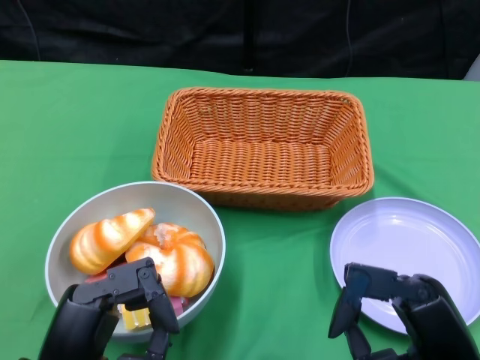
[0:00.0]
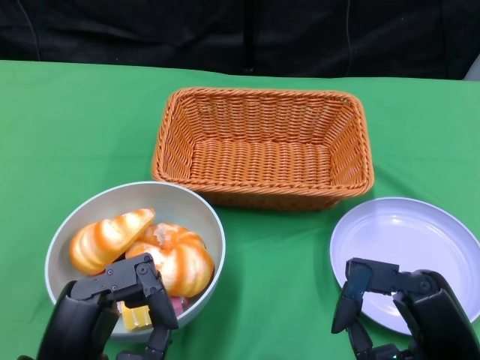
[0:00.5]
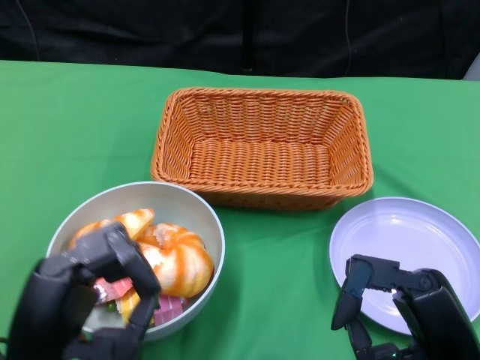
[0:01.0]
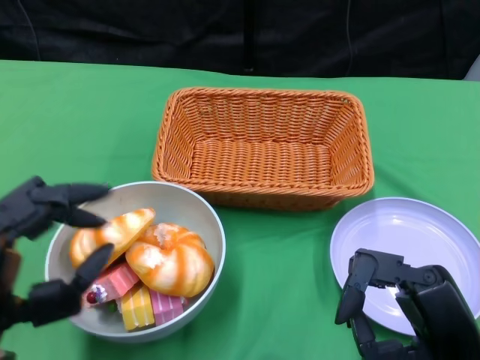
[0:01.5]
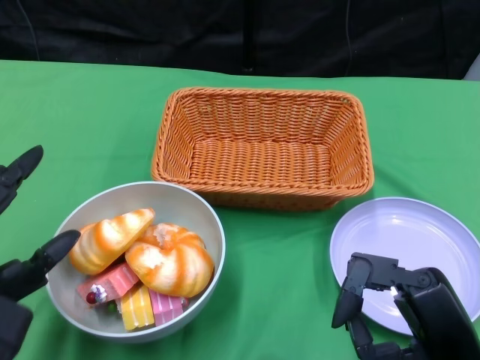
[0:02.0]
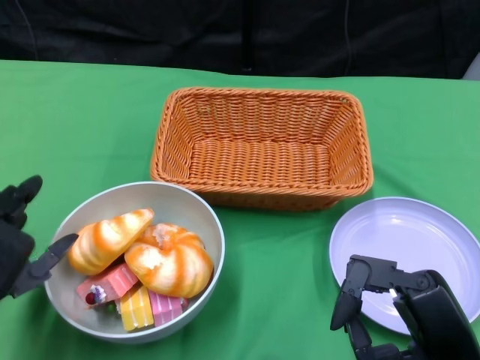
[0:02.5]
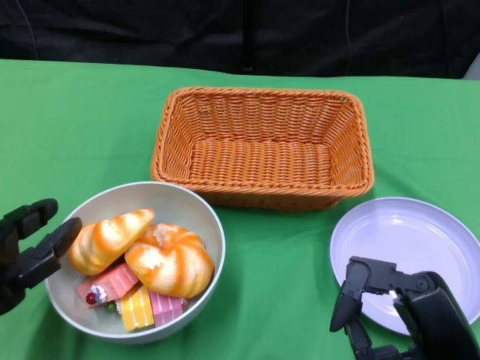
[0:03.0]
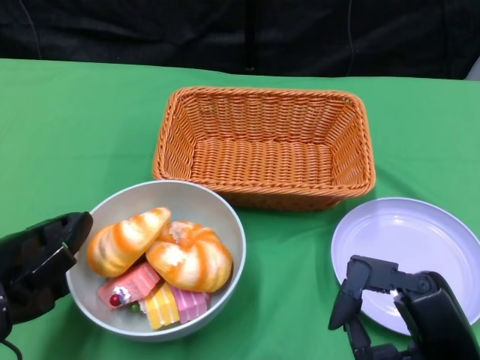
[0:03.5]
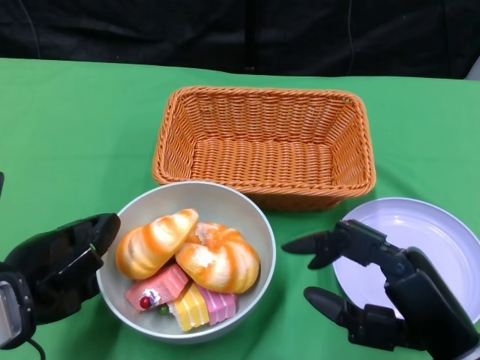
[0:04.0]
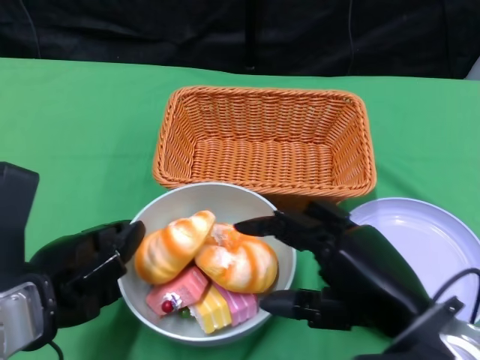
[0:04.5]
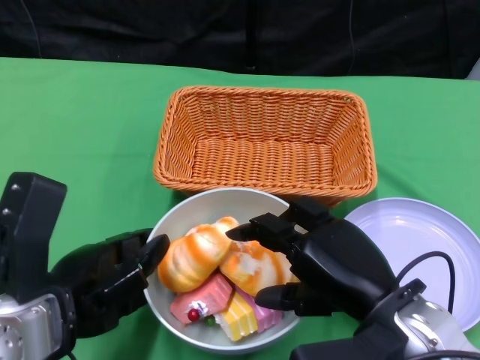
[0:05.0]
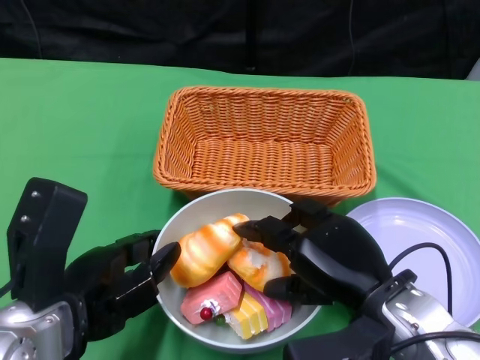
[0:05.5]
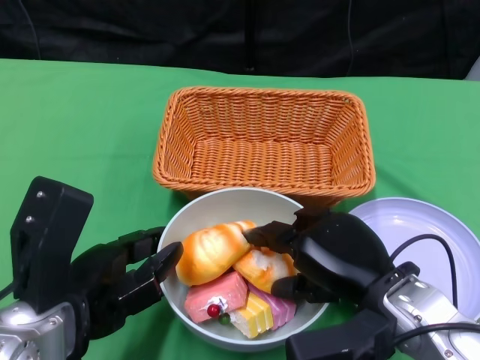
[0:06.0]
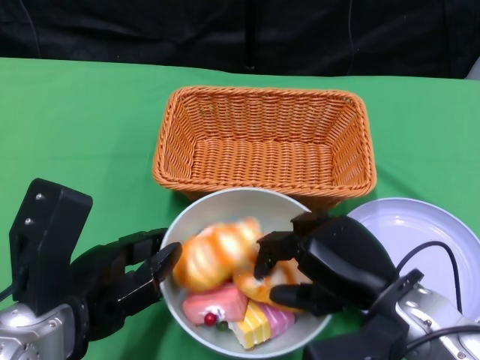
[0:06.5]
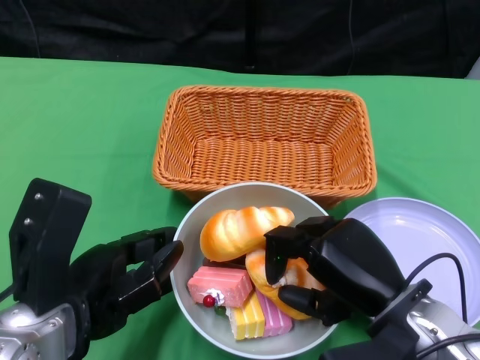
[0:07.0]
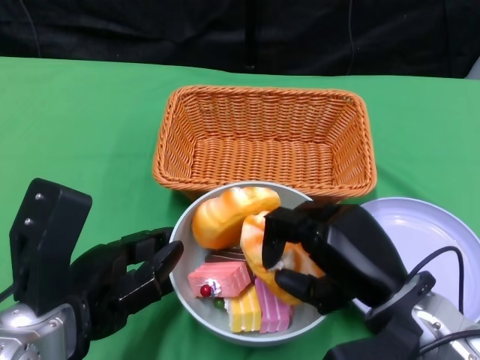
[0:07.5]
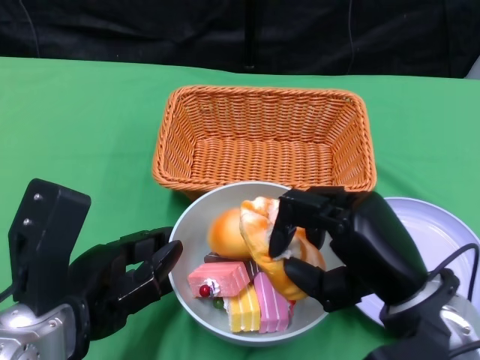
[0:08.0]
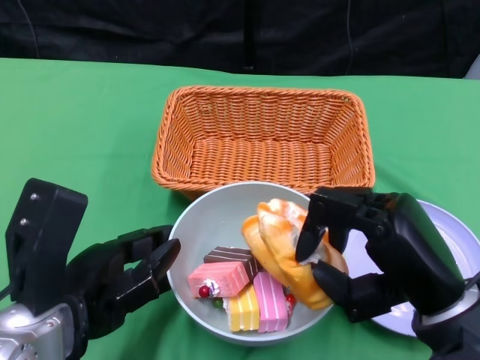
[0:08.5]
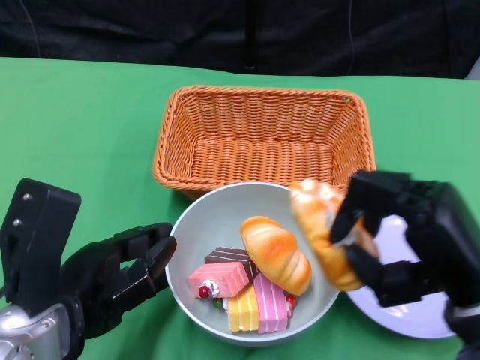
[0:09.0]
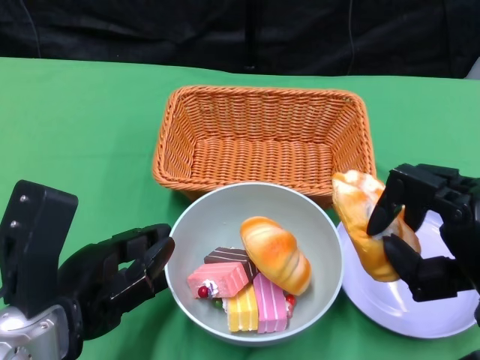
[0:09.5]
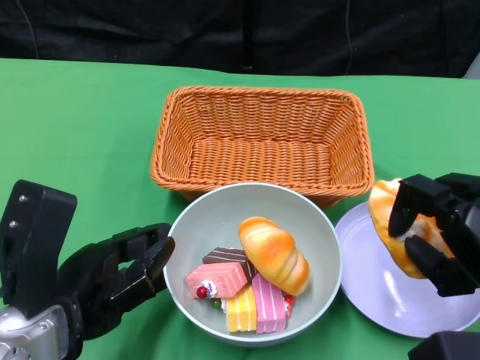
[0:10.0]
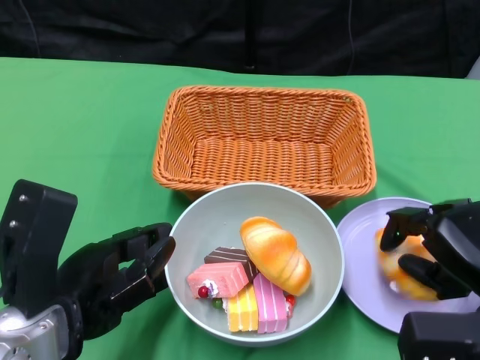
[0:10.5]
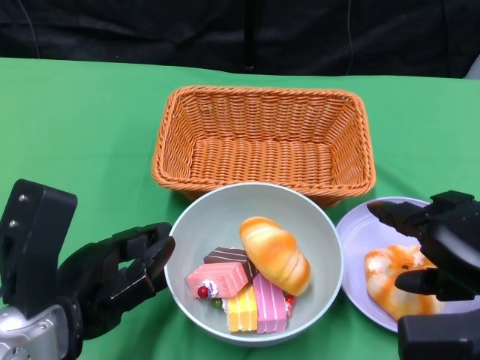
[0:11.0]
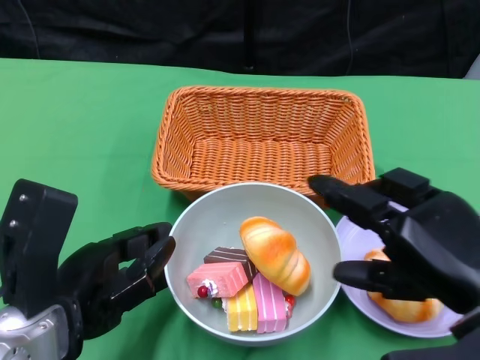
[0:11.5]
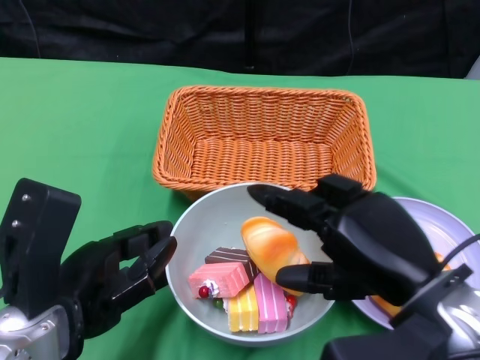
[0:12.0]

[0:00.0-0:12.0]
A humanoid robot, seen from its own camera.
Step, 0:00.0 to 0:05.0: Push the bowl to the center of the table using the left gripper.
0:02.0 to 0:04.0: The left hand goes roughly 5 cm forward.
0:04.0 to 0:06.0: The right hand shifts roughly 5 cm forward.
0:08.0 to 0:10.0: The right hand shifts about 10 cm to the right.
0:10.0 to 0:12.0: The right hand heads to the left, covering about 10 cm.

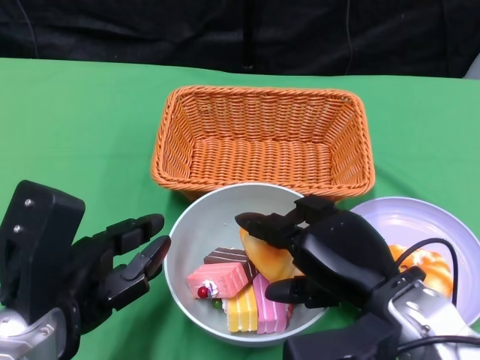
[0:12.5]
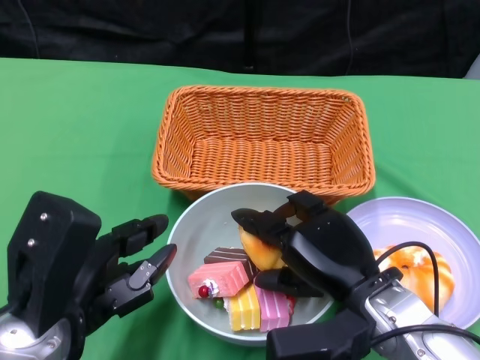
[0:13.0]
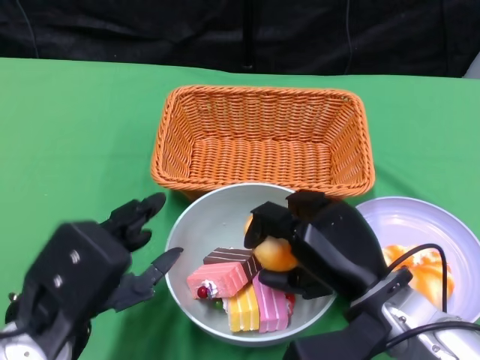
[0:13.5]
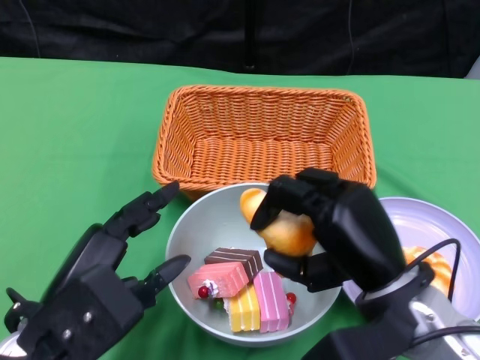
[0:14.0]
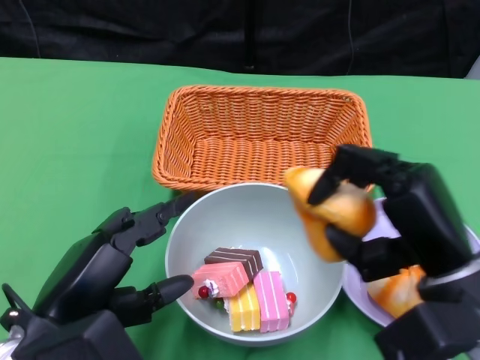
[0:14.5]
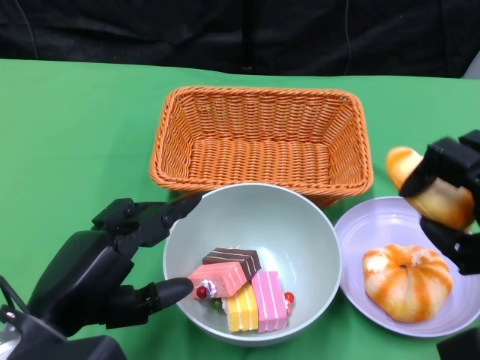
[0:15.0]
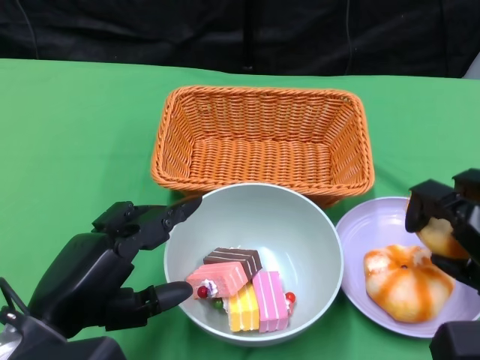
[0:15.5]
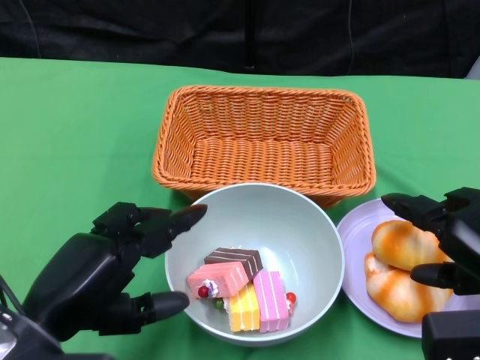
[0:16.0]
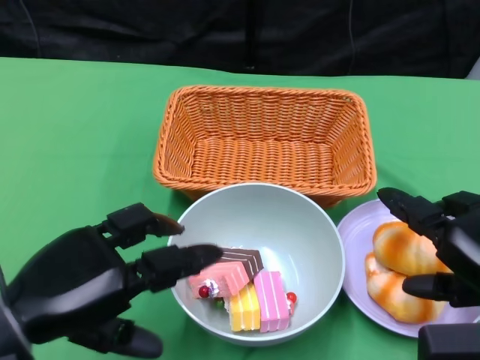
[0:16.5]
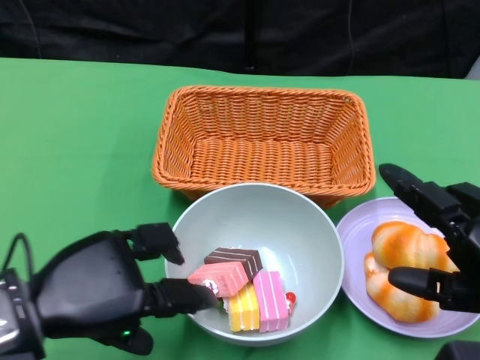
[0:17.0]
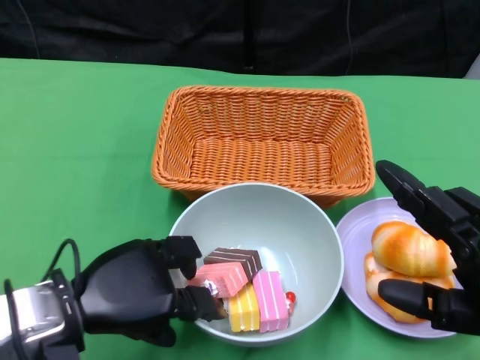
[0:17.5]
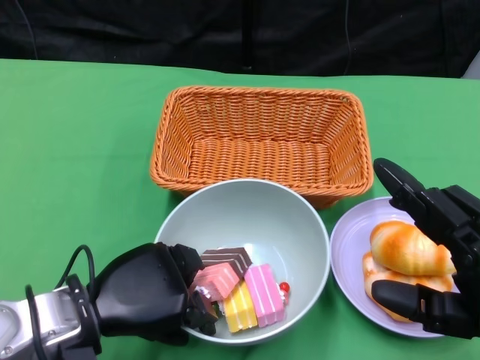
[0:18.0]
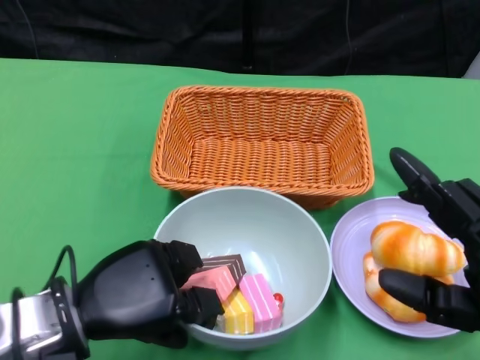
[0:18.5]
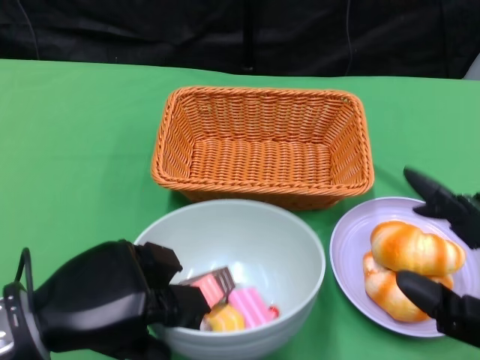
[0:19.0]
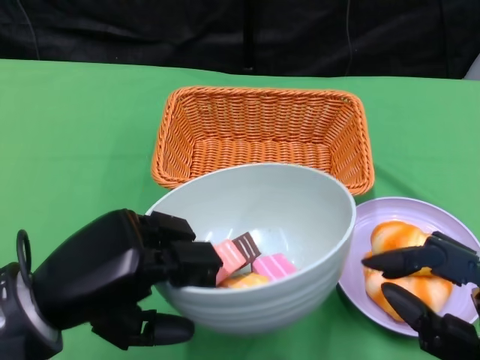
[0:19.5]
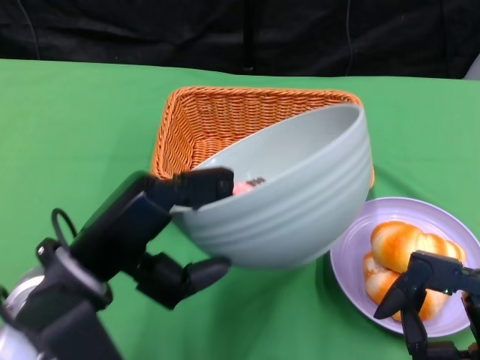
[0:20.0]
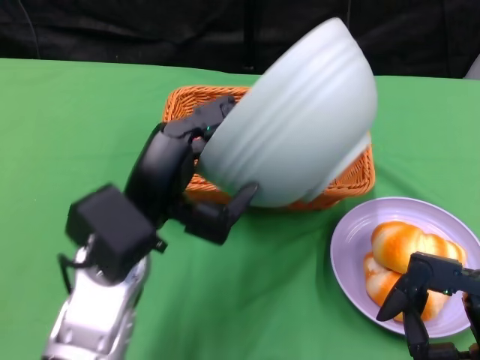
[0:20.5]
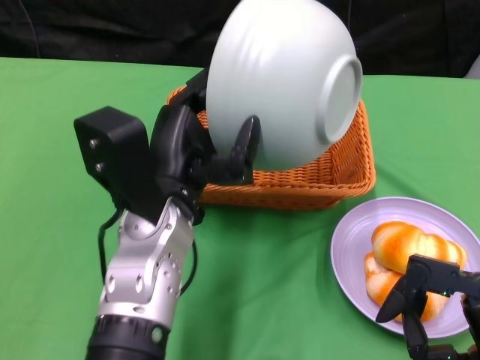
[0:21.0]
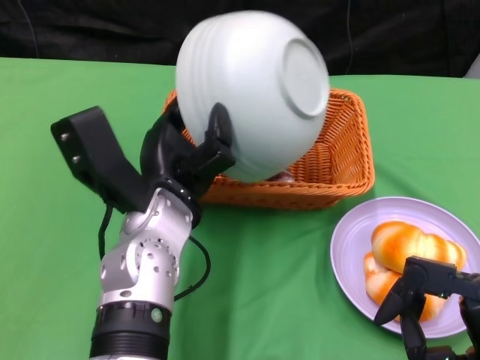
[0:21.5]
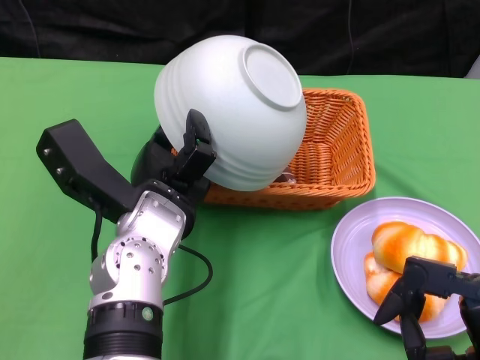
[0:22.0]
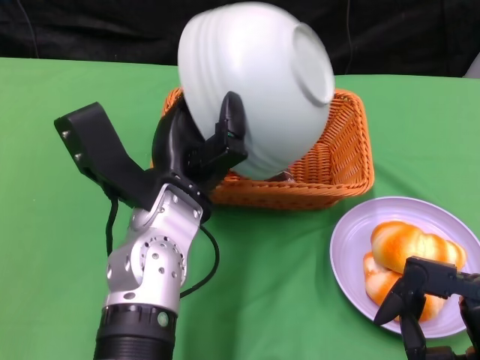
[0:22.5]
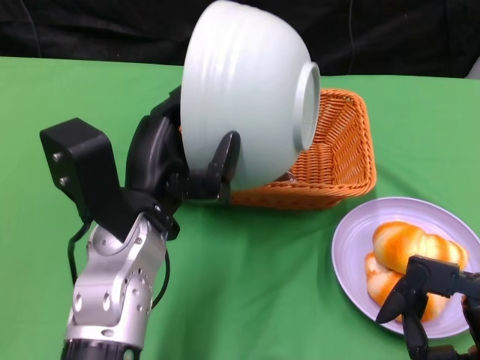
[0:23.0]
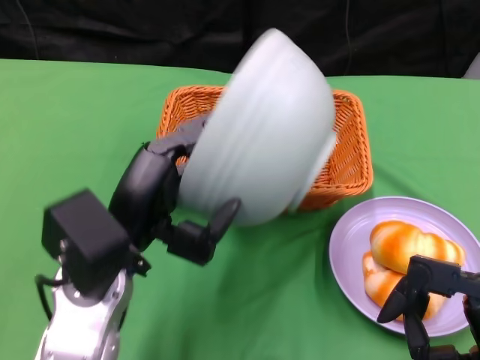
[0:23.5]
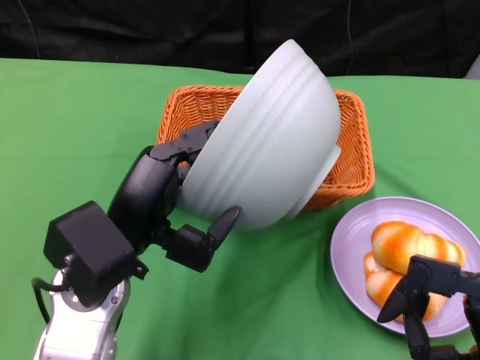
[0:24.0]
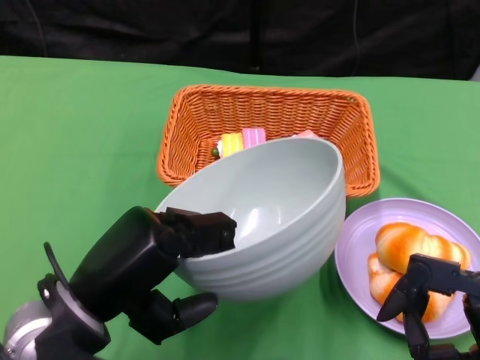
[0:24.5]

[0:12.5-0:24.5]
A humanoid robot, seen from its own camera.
Step, 0:12.5 to 0:16.0: Pick up the bread with the right gripper and place it on the plate.
Step, 0:16.5 to 0:18.0: Grasp the bowl with the left gripper.
Step, 0:18.5 to 0:21.5: Pour the cake into the basket with the left gripper.
0:14.5 to 0:16.5: The right hand moves to the right, approximately 5 cm.
0:16.5 to 0:18.5: The right hand goes roughly 5 cm backward, while the left hand moves downward, roughly 5 cm.
0:18.5 to 0:20.5: The left hand heads upward and to the right, covering some 10 cm.
0:20.5 to 0:22.5: The left hand changes place by some 5 cm.
0:22.5 to 0:24.5: The left hand is displaced to the left and backward by about 15 cm.

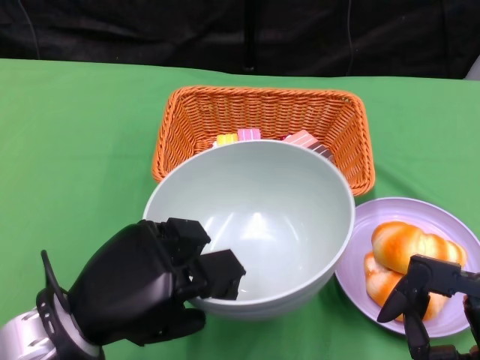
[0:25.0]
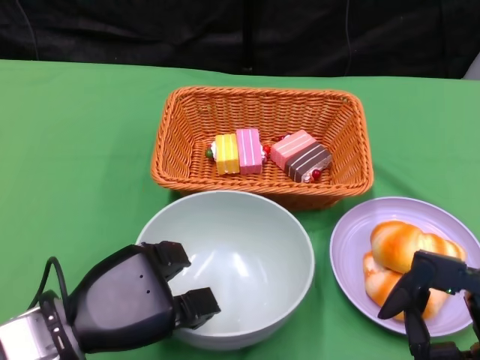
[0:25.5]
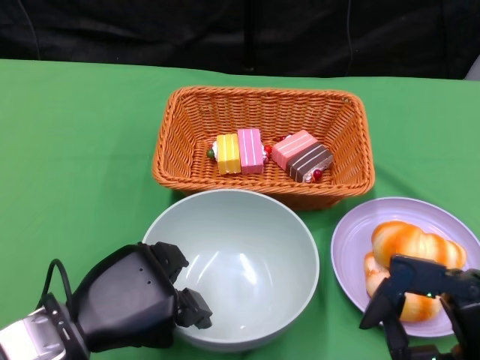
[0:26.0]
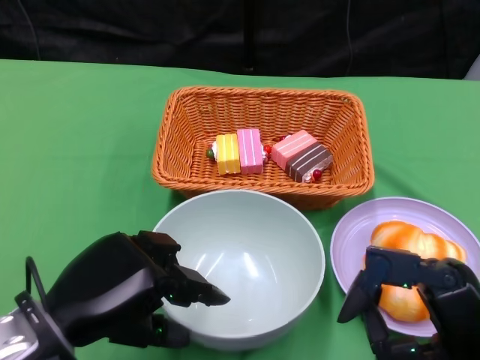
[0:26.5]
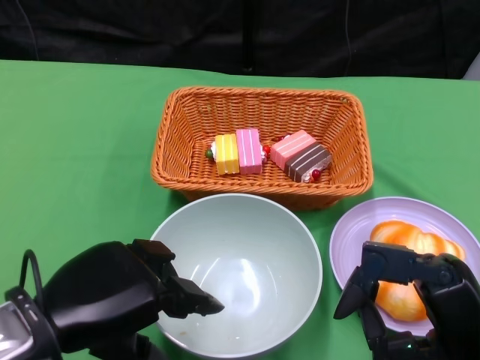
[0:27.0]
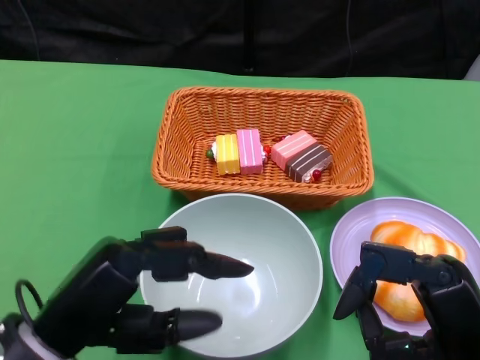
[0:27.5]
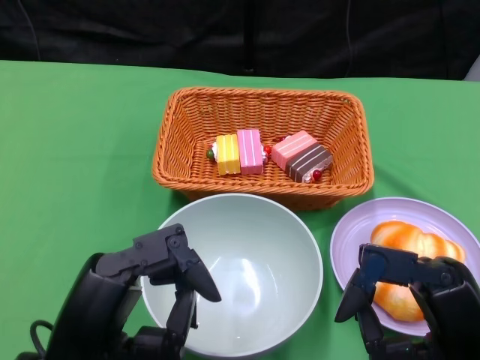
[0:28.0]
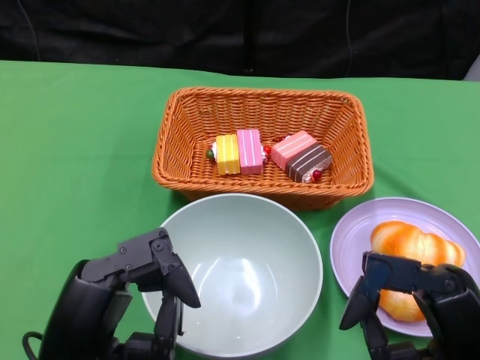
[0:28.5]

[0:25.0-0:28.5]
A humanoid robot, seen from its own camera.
0:27.0 to 0:28.5: The left hand ends up some 5 cm from where it was.
